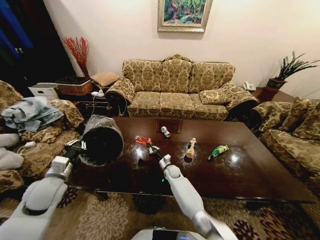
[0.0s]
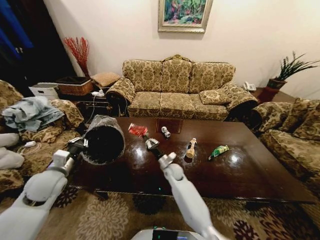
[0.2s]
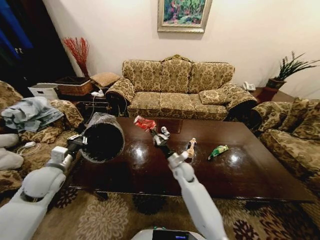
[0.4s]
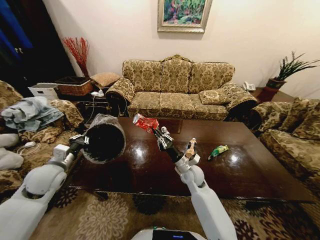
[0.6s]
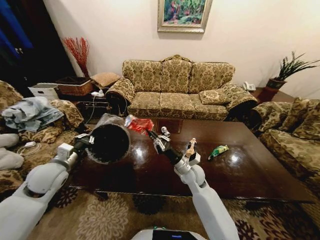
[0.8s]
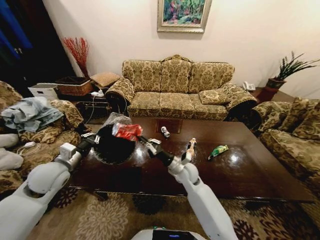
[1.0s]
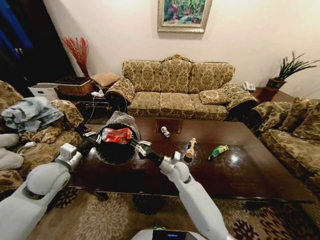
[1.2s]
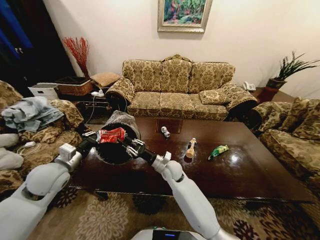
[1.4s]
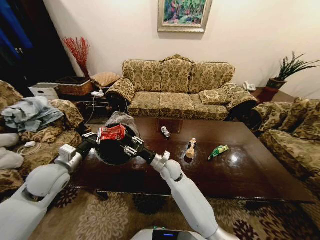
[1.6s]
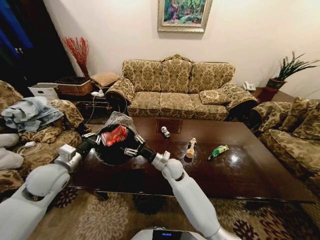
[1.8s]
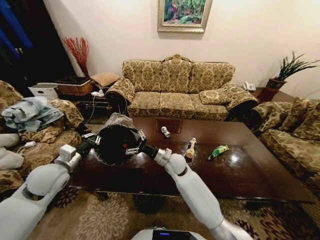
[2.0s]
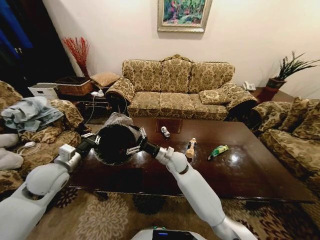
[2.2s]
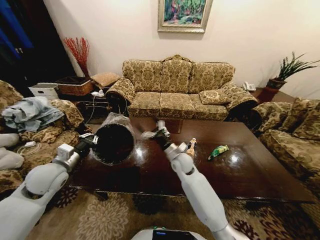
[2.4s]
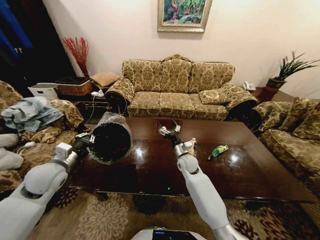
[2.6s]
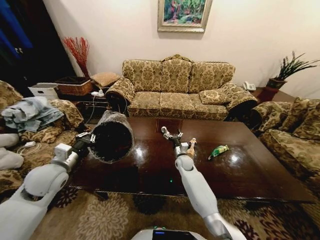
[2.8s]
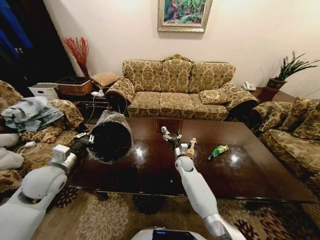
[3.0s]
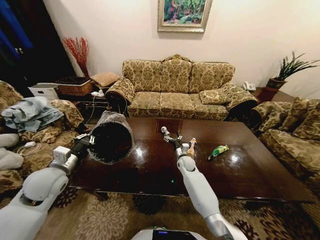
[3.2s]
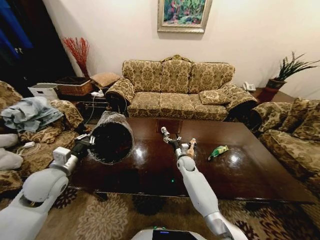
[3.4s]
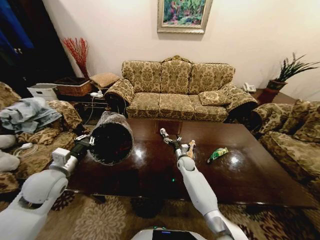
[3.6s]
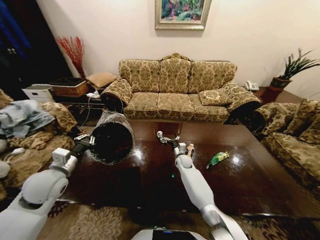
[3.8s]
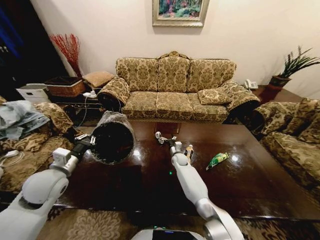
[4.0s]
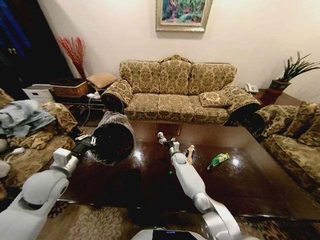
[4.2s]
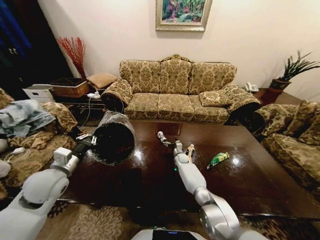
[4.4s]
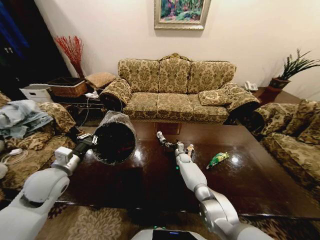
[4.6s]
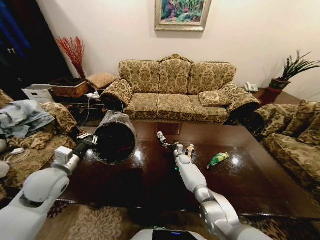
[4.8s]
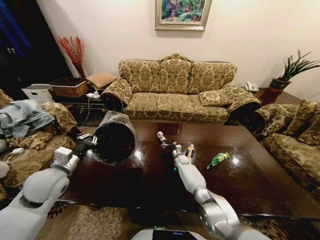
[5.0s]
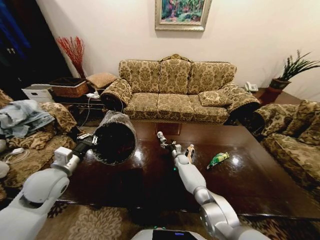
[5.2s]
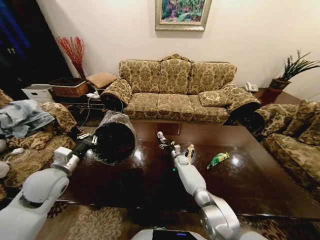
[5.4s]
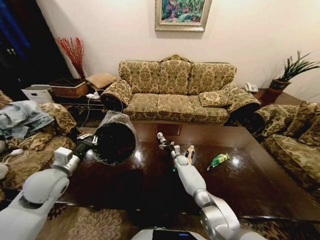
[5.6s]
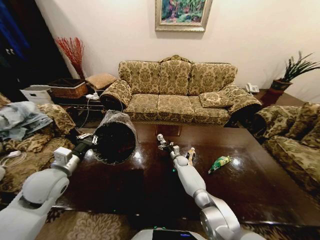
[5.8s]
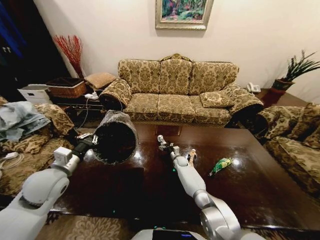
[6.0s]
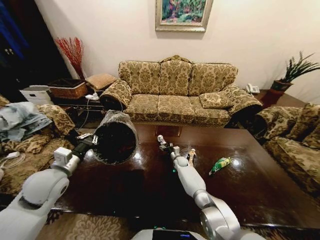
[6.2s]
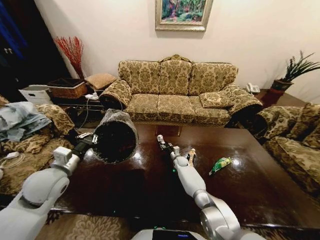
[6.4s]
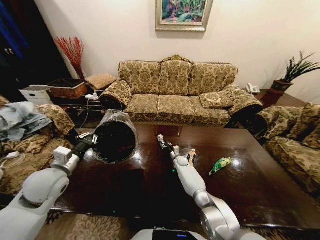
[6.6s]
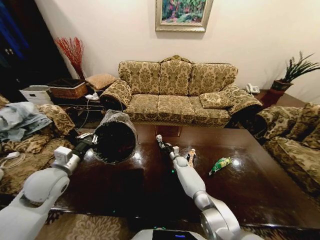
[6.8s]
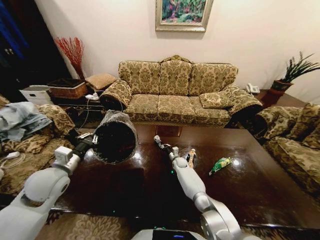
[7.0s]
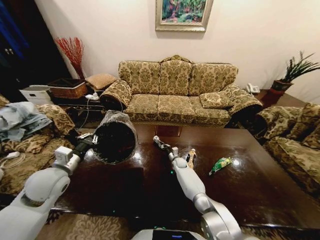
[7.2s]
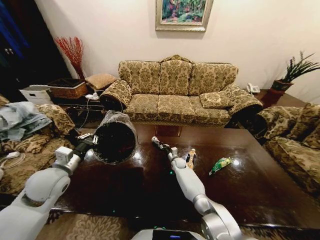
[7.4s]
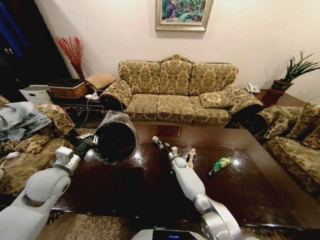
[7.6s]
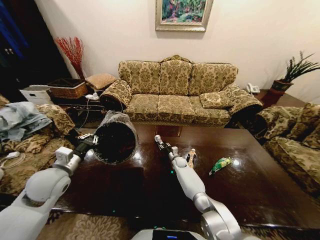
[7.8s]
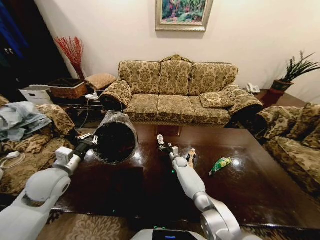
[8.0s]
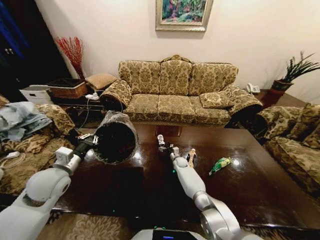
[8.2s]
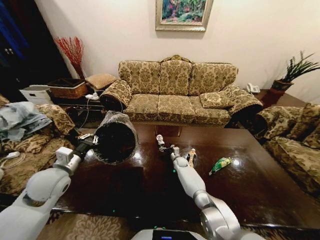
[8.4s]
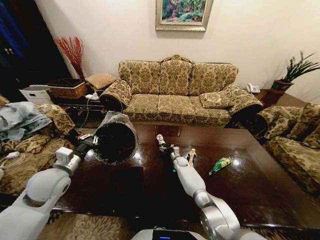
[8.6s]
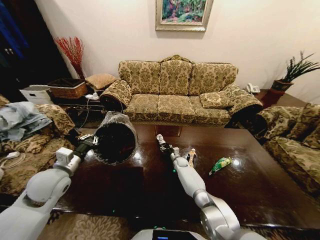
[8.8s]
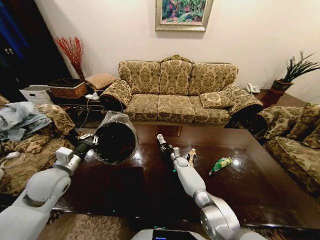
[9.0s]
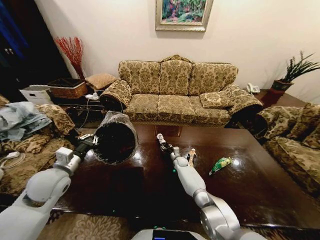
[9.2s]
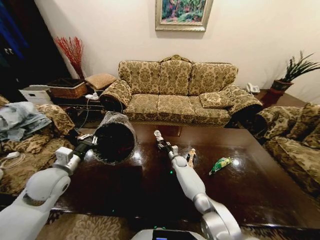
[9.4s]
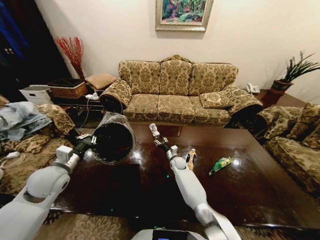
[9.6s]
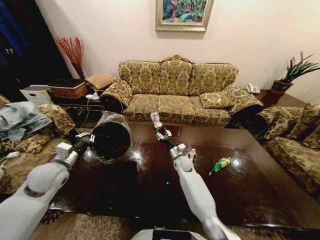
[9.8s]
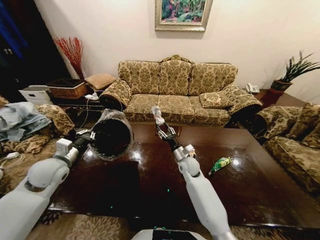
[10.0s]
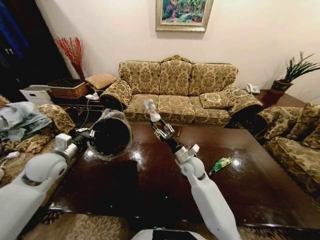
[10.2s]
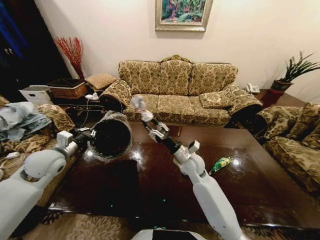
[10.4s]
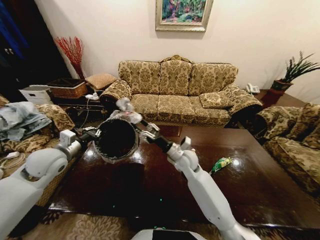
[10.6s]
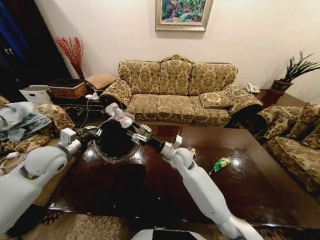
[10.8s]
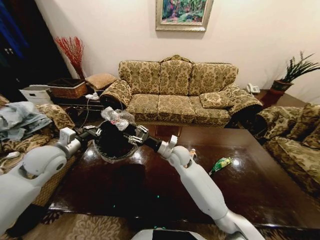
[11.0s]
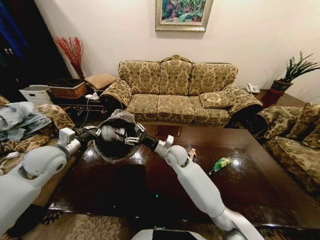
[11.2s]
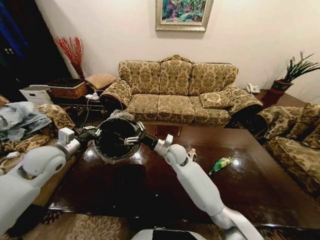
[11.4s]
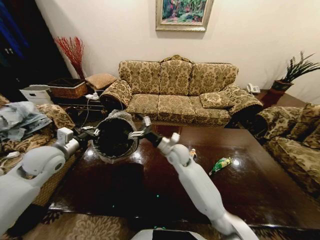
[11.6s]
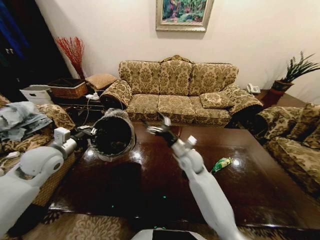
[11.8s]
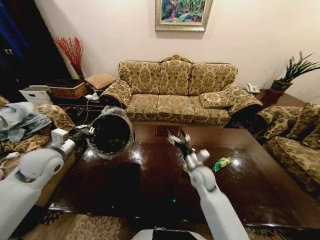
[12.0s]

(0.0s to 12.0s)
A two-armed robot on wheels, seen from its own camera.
Task of the whole recording: Move to the front of the table and place the trash on the table into the trash bin.
0.0s - 1.6s: The right gripper shifts some 20 cm upward and backward, and opens, while the left gripper shifts by some 5 cm.
1.6s - 3.0s: The right gripper moves to the right, forward and downward, some 15 cm, and opens up.
3.0s - 4.4s: The right gripper goes about 10 cm downward and forward.
6.0s - 7.6s: The right gripper closes its fingers.
7.6s - 9.0s: The right gripper opens, then closes once more.
9.0s - 10.4s: The left gripper goes some 5 cm forward. The right gripper shifts about 30 cm upward and backward.
10.4s - 12.0s: The right gripper travels to the left and back again, some 10 cm each way, and opens up.

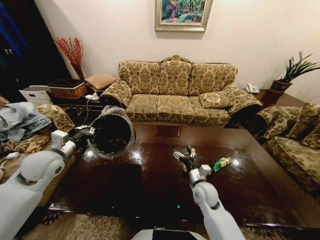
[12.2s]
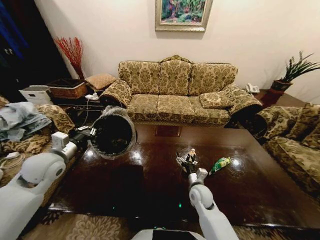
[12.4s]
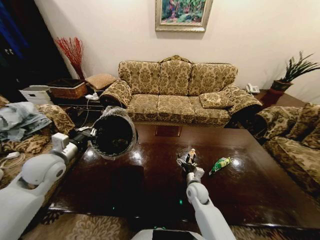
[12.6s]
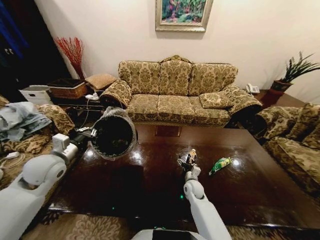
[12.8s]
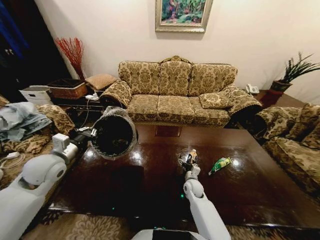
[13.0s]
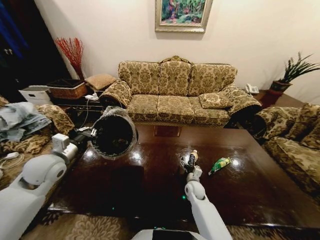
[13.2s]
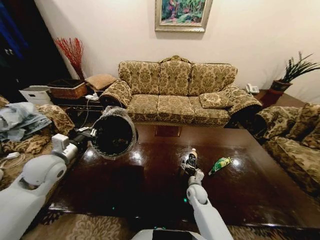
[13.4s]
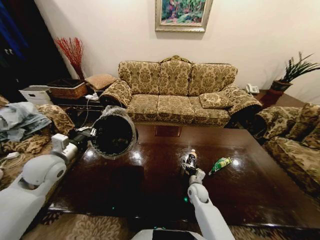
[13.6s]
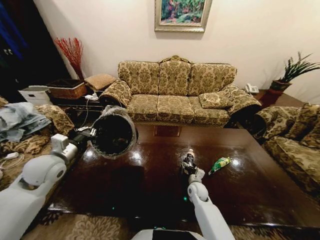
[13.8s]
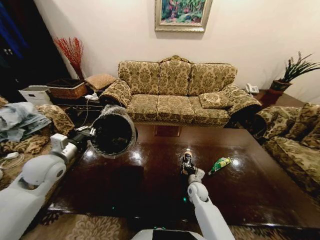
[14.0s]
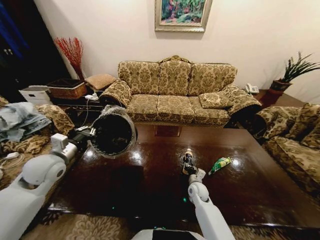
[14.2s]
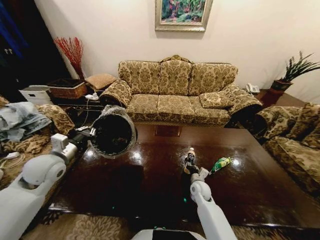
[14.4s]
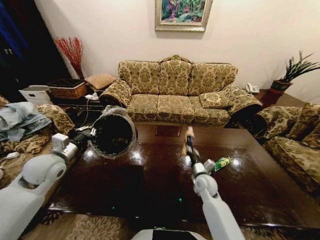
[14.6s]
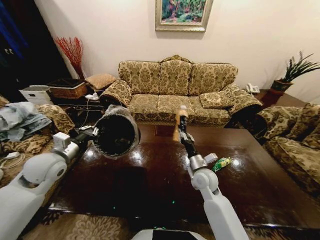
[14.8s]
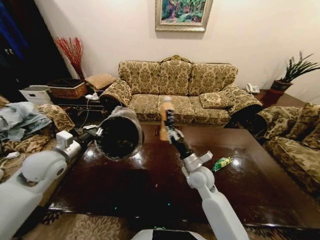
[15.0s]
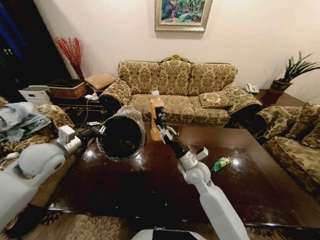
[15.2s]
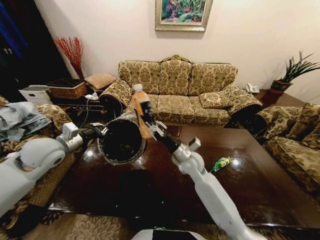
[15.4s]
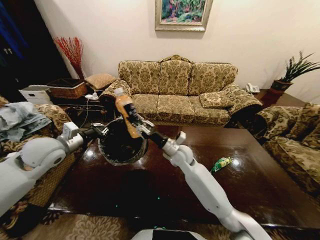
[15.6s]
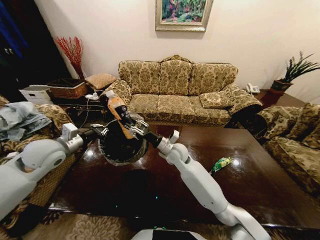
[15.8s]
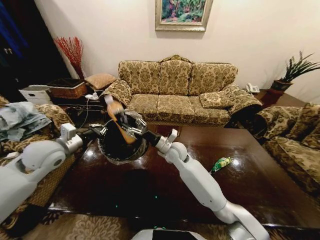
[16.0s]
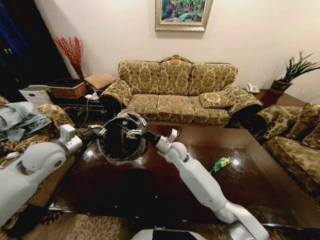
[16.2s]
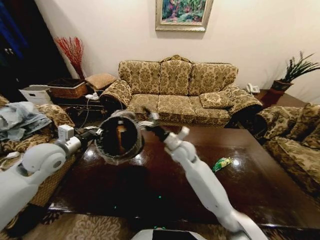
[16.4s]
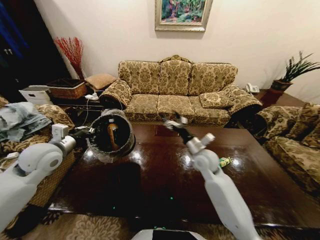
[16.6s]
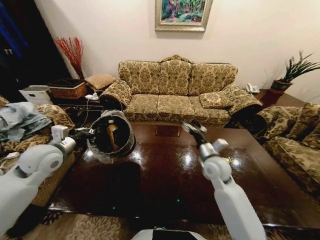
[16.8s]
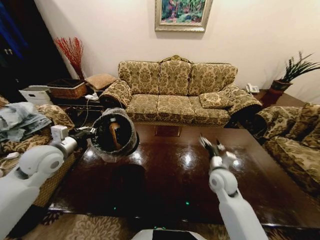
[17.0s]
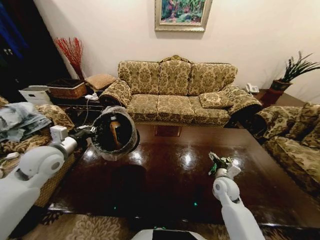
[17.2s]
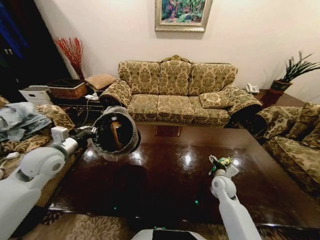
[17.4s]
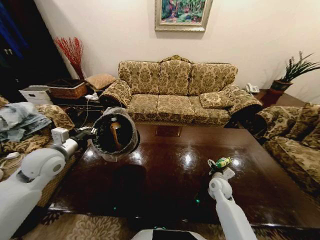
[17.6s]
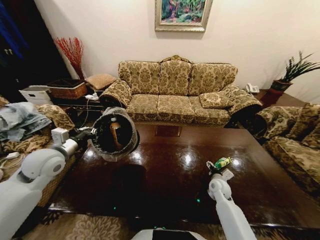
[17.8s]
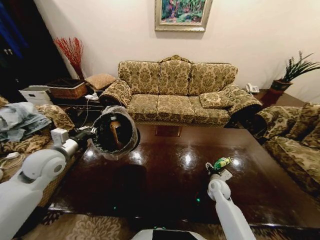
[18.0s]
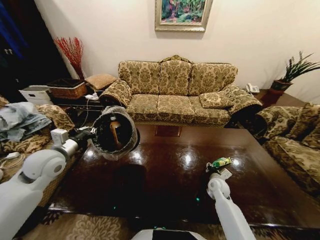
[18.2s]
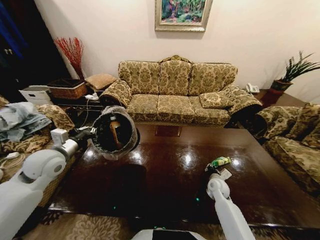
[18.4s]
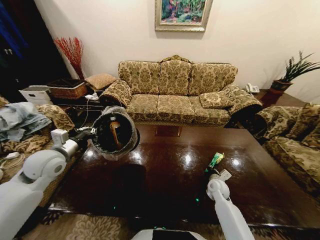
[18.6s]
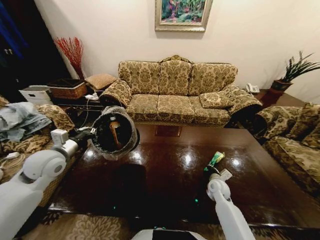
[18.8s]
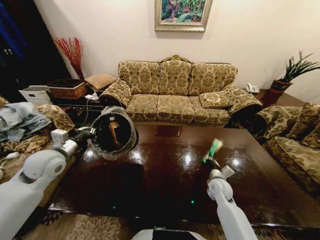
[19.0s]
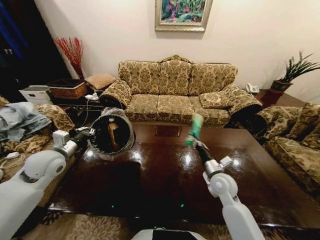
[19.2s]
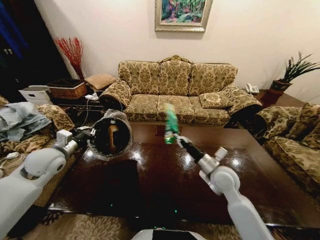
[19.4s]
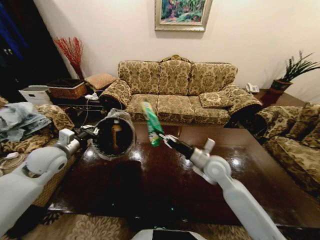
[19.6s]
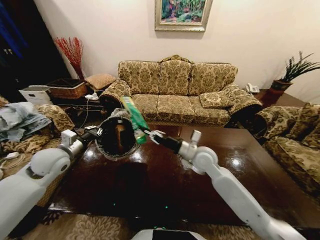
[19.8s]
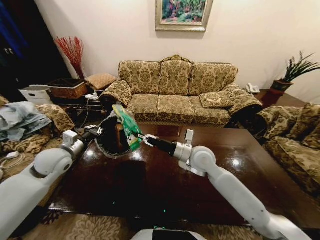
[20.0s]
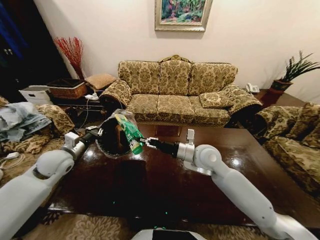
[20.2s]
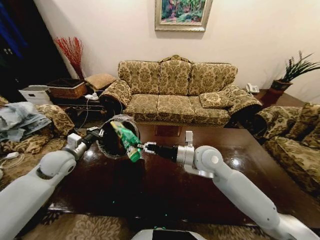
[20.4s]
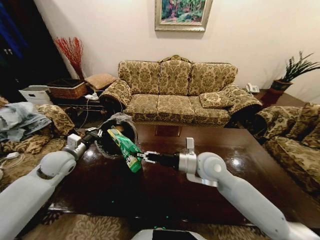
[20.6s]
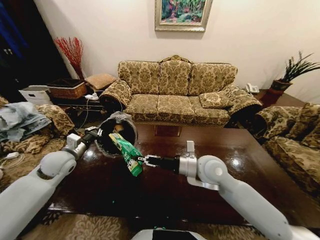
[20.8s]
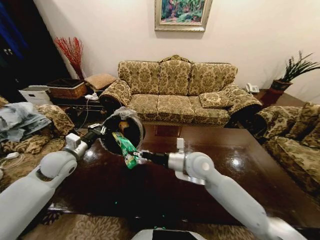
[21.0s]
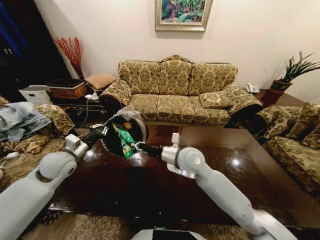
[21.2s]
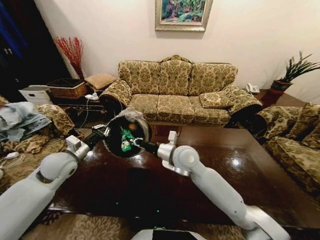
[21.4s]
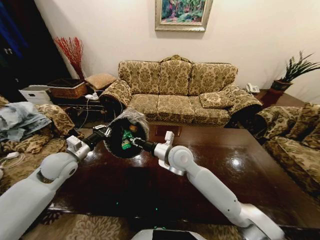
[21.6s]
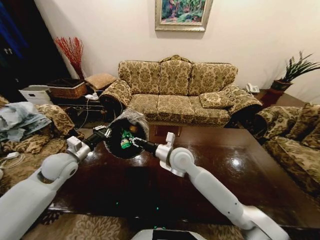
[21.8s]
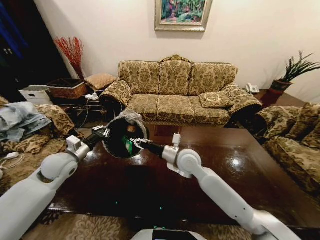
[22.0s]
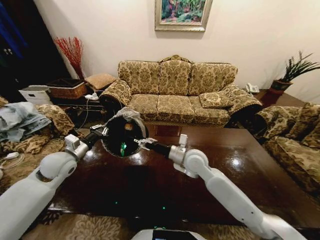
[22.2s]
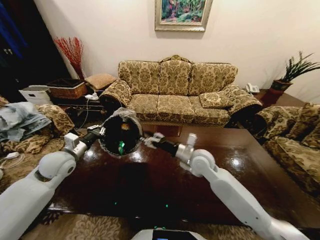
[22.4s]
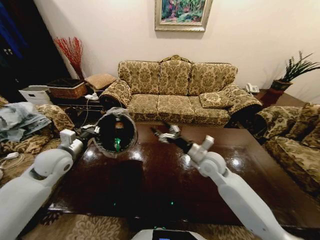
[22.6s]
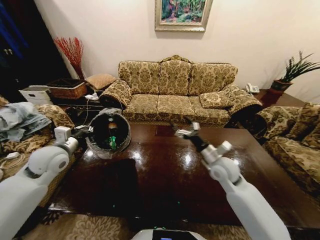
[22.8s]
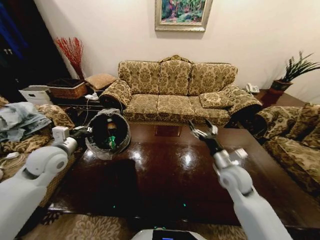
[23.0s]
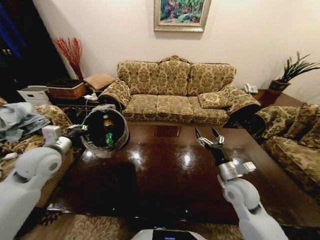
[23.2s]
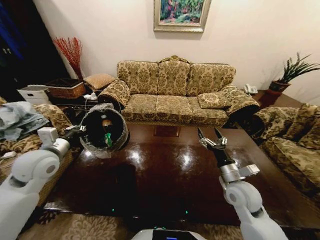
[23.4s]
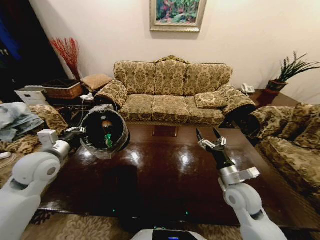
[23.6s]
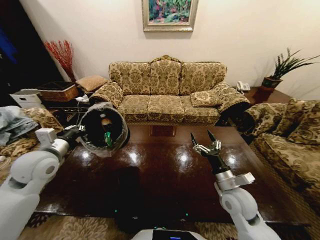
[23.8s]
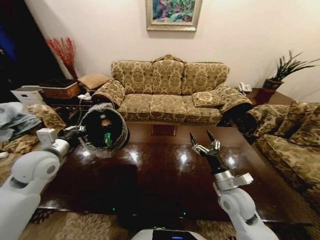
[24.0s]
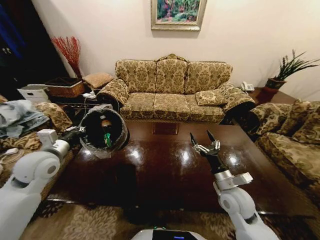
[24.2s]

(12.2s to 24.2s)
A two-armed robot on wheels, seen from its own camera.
Task of the whole recording: Move to the front of the table and place the trash on the table into the trash bin.
12.2s - 13.8s: The right gripper shifts some 10 cm downward.
13.8s - 15.2s: The right gripper goes roughly 20 cm upward, and closes, while the left gripper changes place by approximately 5 cm.
15.2s - 16.6s: The right gripper goes to the left and returns, some 10 cm each way, and opens.
16.6s - 18.2s: The right gripper goes roughly 25 cm downward and to the right, and closes up.
18.2s - 19.8s: The right gripper goes approximately 30 cm upward and to the left, and closes up.
19.8s - 21.2s: The right gripper travels to the left by roughly 5 cm.
21.2s - 22.6s: The right gripper travels to the right by some 10 cm, and opens.
22.6s - 24.2s: The right gripper moves backward, to the right and downward, some 15 cm.
